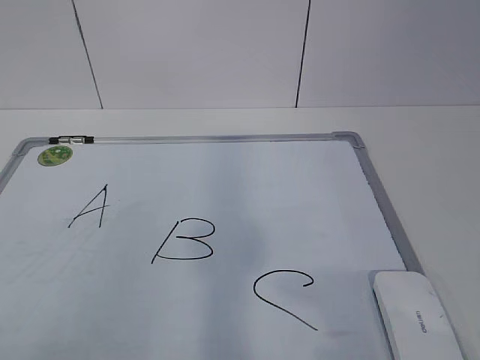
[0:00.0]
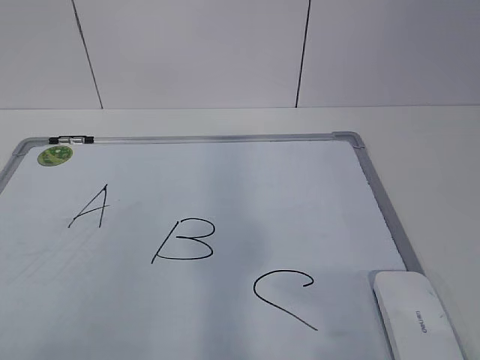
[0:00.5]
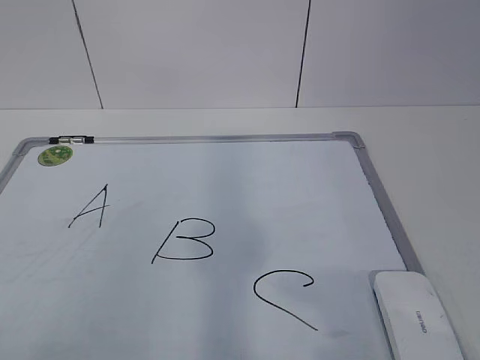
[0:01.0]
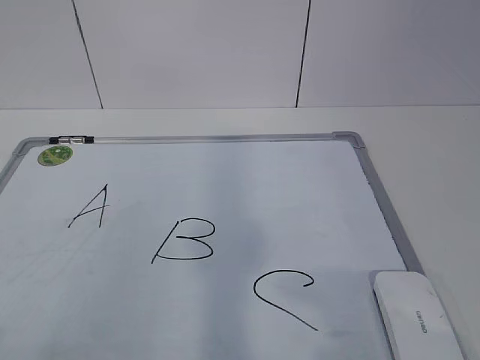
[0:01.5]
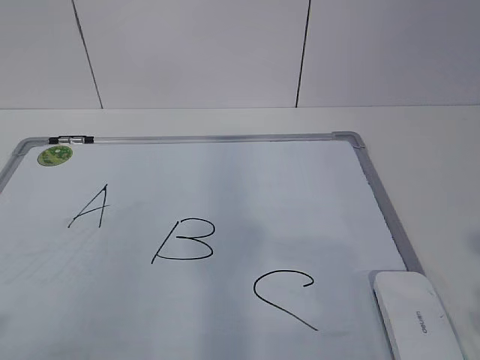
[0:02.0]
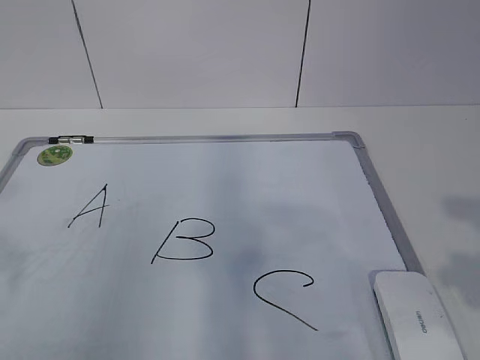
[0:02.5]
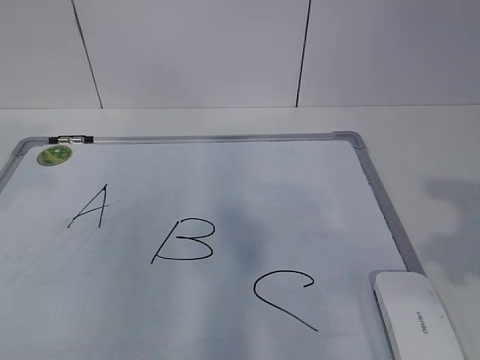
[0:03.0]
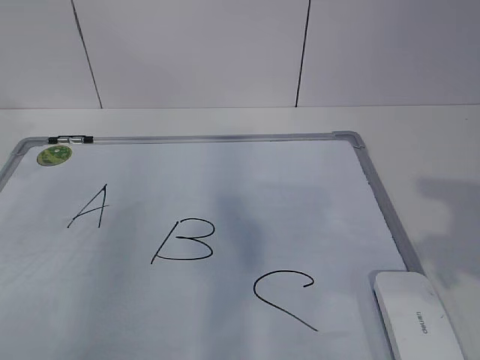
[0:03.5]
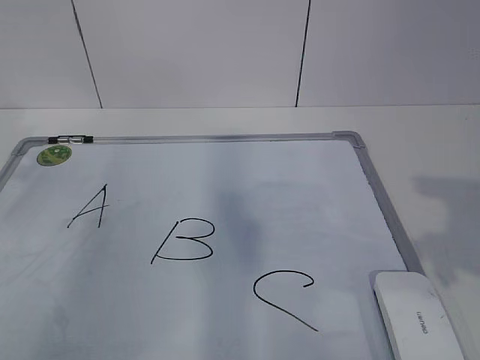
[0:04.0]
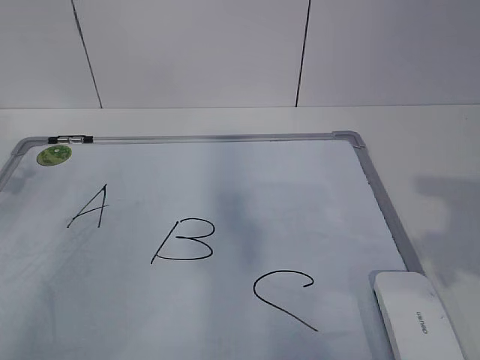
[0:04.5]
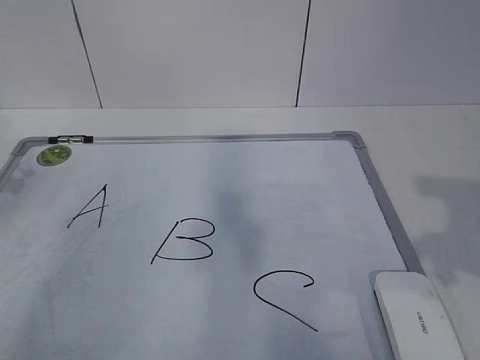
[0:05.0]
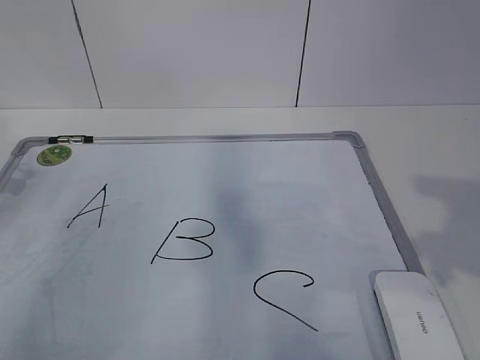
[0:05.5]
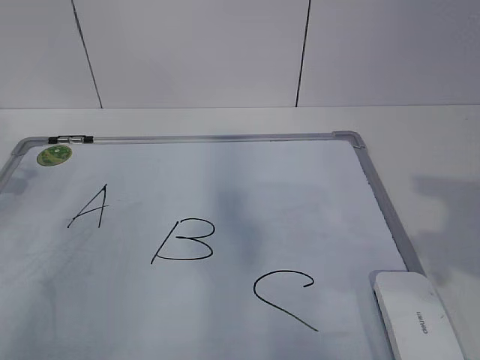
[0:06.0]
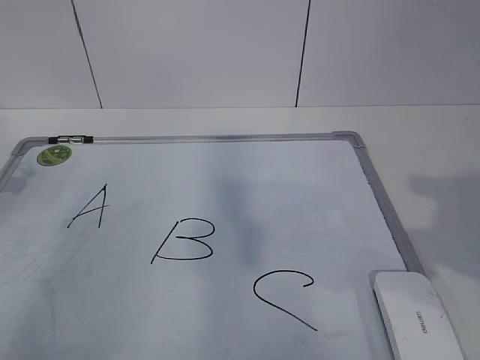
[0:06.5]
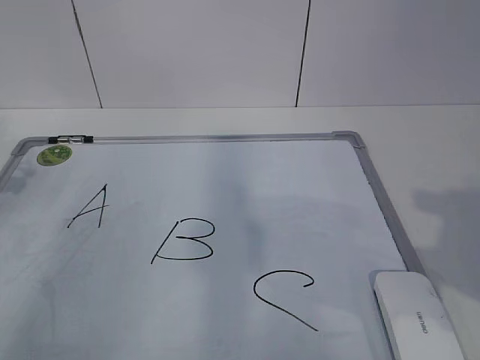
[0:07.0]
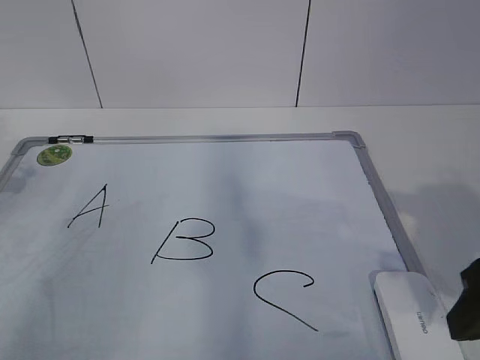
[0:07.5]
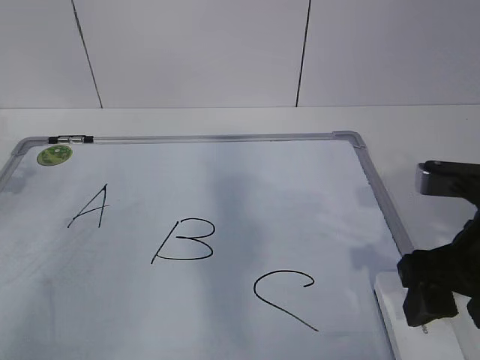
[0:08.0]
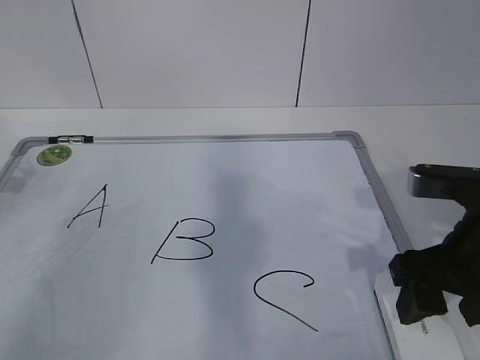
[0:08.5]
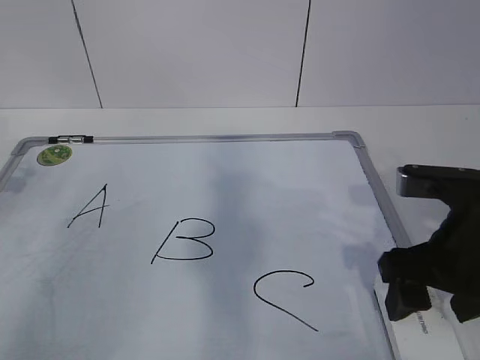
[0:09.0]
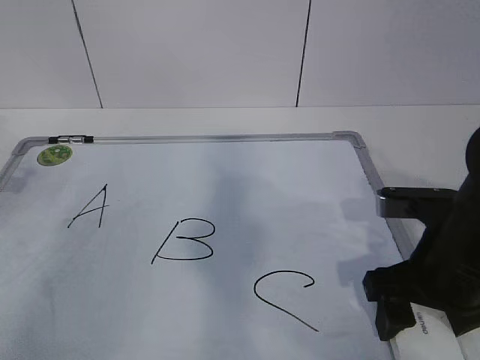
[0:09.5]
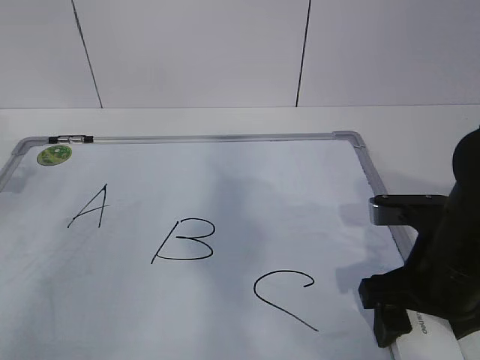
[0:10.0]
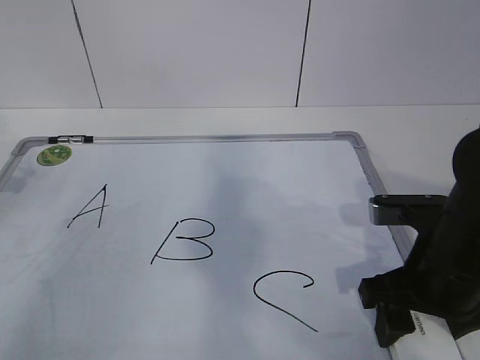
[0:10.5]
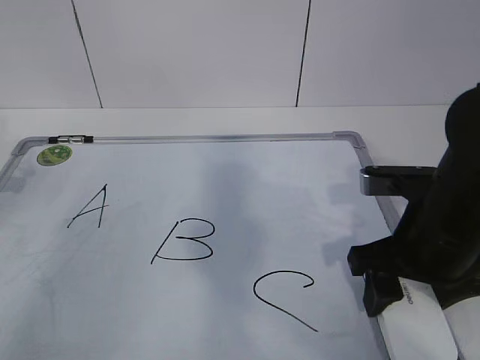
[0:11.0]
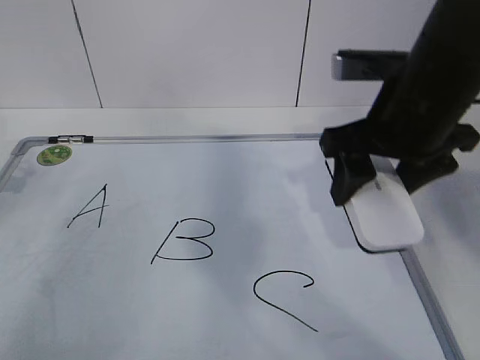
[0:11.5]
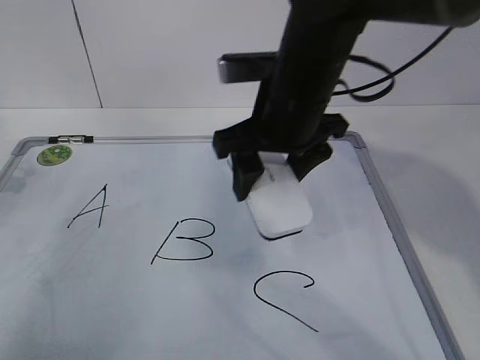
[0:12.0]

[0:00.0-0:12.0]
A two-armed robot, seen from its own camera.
Task of the whole recording: pick up the eraser on the blackboard and erase the letter "B".
Step, 0:00.0 to 0:08.0: Grab the eraser with your right hand.
0:02.0 to 0:04.0: The left gripper shifts roughly 35 cm forward; the right gripper travels forward by some 10 cm.
0:06.0 to 0:08.0: The right gripper is displaced downward, forward and to the left by about 15 cm.
0:08.0 to 0:10.0: The right gripper changes place by about 5 cm.
0:10.0 to 0:12.0: The right gripper goes approximately 20 cm forward, to the left and upward.

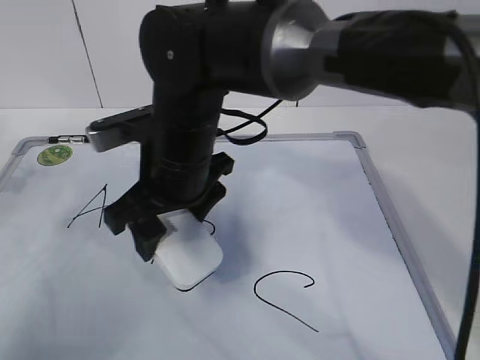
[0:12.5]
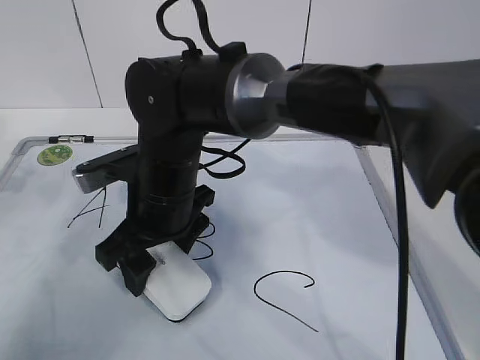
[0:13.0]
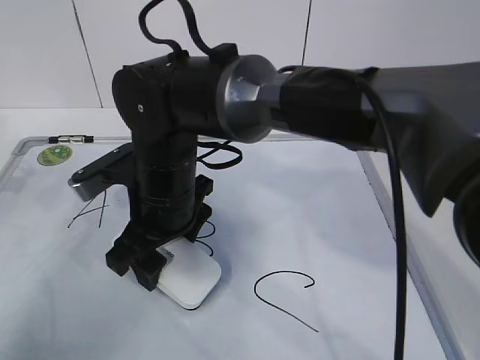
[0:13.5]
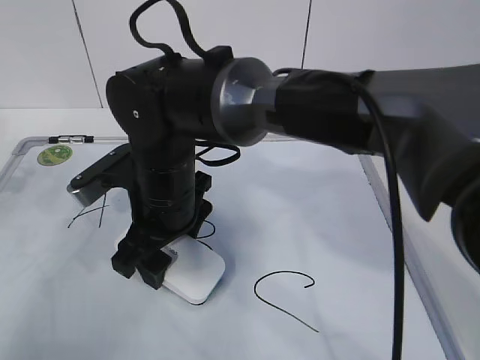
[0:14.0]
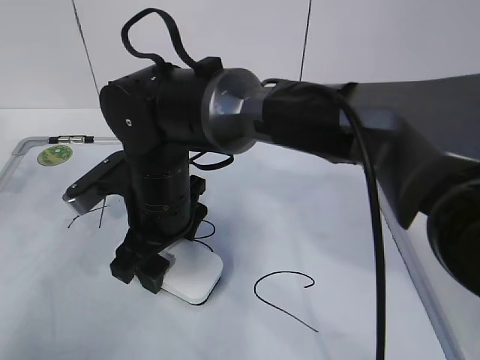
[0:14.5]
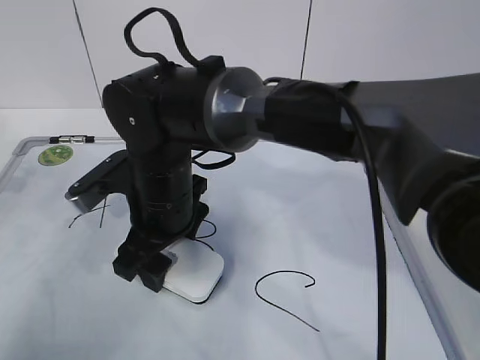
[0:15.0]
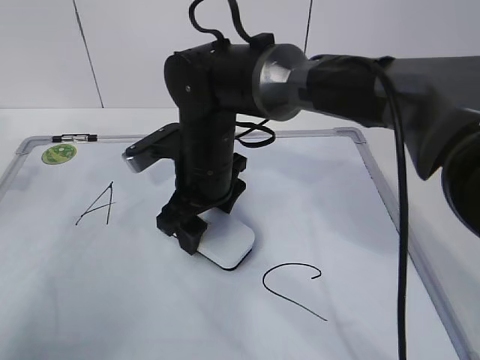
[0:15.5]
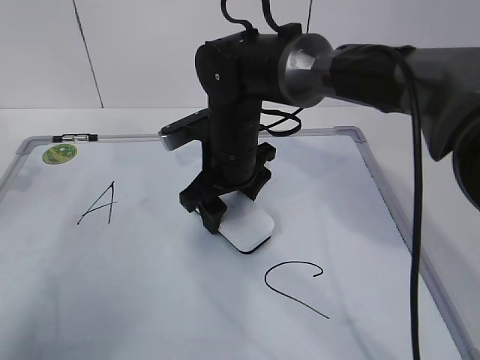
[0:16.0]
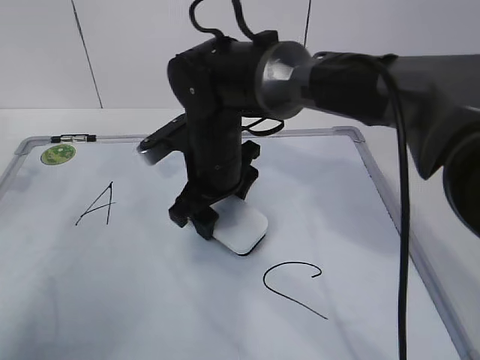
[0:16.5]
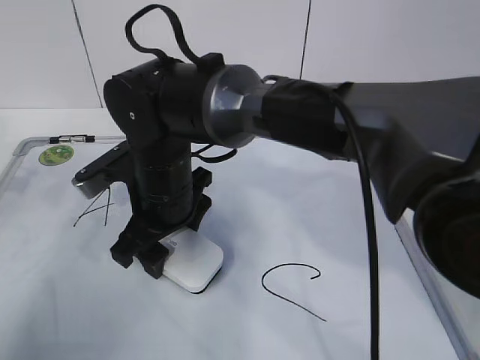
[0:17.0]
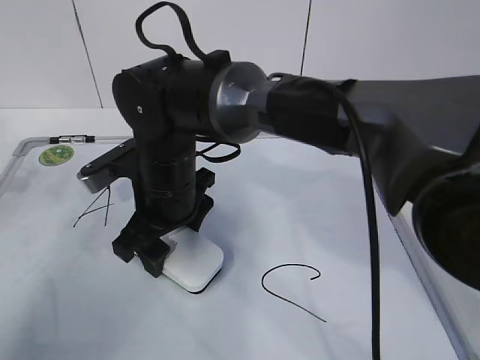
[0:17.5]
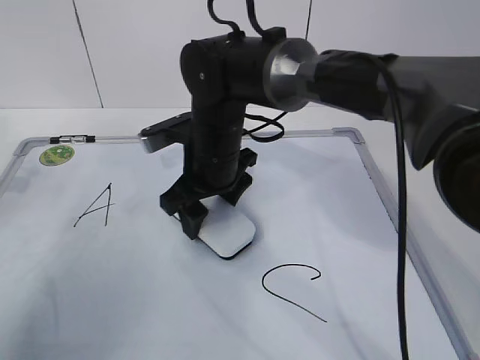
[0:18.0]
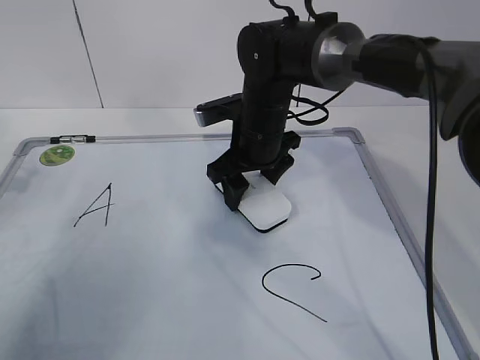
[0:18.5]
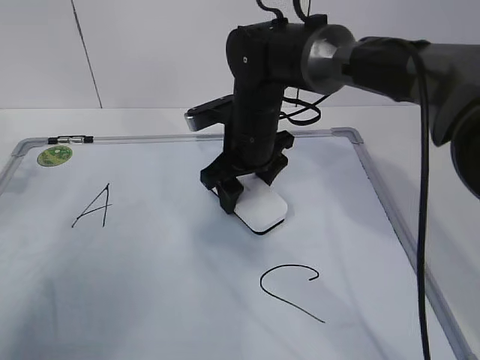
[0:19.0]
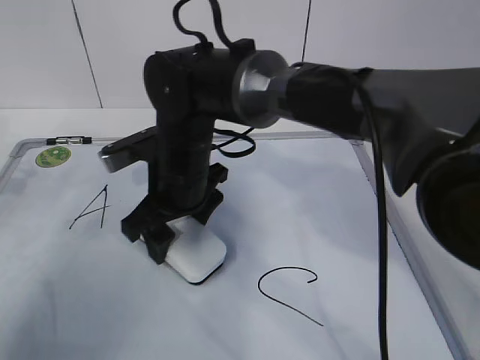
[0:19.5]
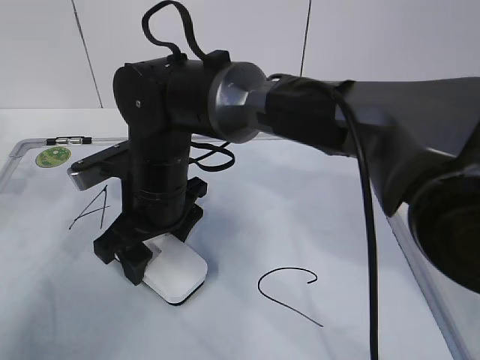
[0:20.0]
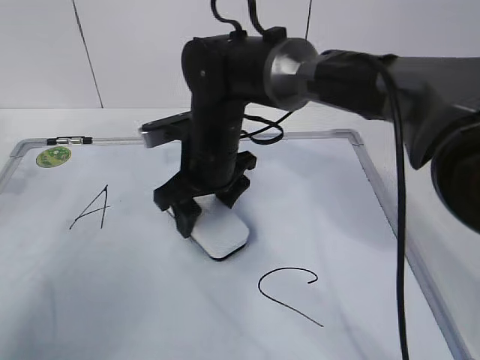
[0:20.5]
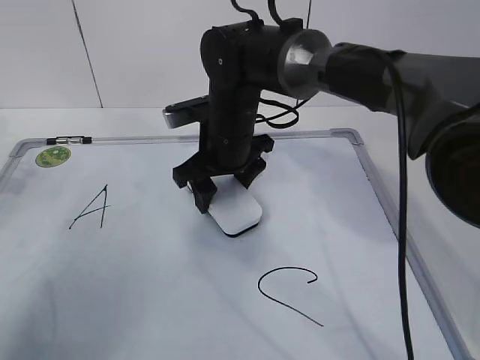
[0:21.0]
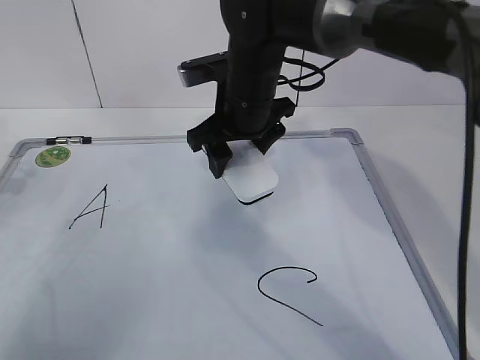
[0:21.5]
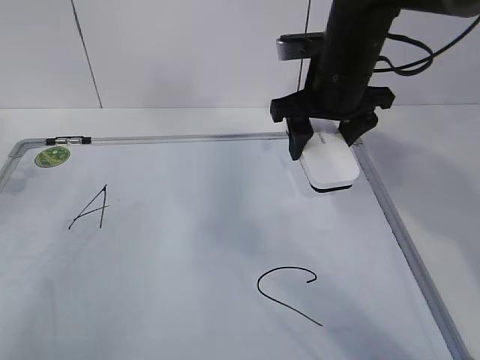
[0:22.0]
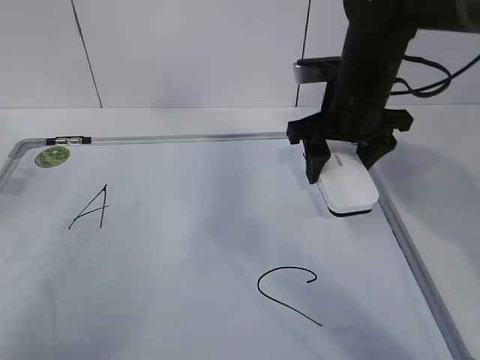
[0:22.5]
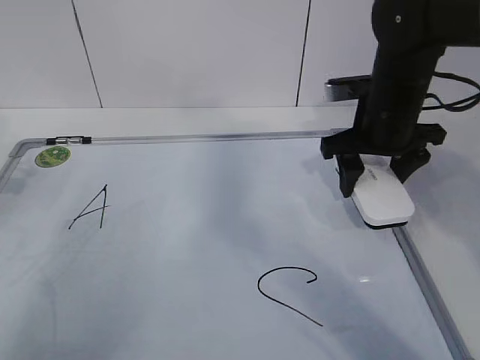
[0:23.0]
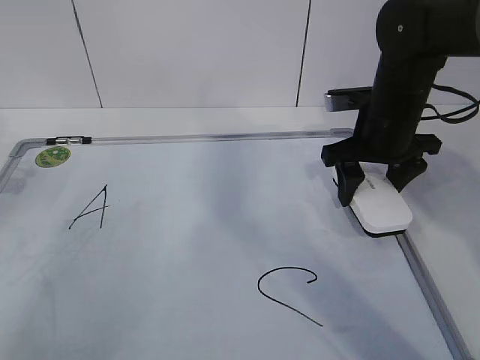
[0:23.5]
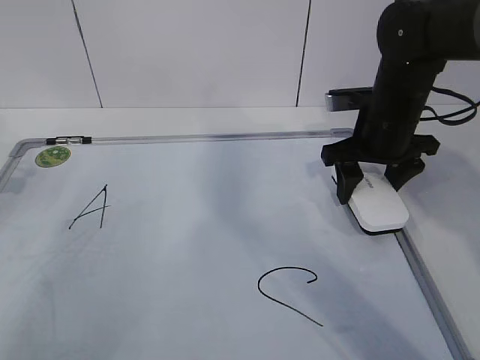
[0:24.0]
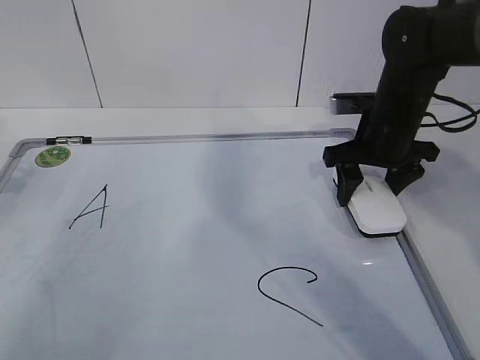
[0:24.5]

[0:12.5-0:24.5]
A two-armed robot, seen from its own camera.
Task of the whole recording: pick up the eraser on the blackboard and erase the letter "B".
Step, 0:12.5 to 0:17.5: Erase the letter B with your right hand.
Step, 0:18.0 to 0:21.5: Put down the eraser with your right hand.
0:12.5 to 0:14.5: The right gripper goes about 5 cm downward.
0:14.5 to 0:16.5: The right gripper travels forward and to the right by some 10 cm.
0:16.5 to 0:18.5: The right gripper moves to the right and forward, some 10 cm.
0:18.5 to 0:20.5: The right gripper goes approximately 5 cm to the left.
0:20.5 to 0:22.5: The right gripper is displaced to the right and upward by some 20 cm.
0:22.5 to 0:24.5: The right gripper moves to the right, roughly 5 cm.

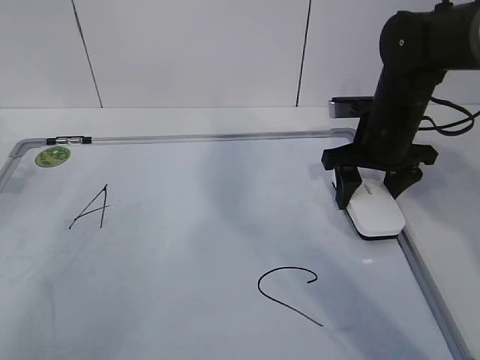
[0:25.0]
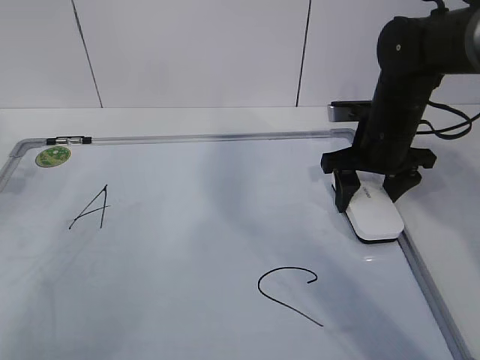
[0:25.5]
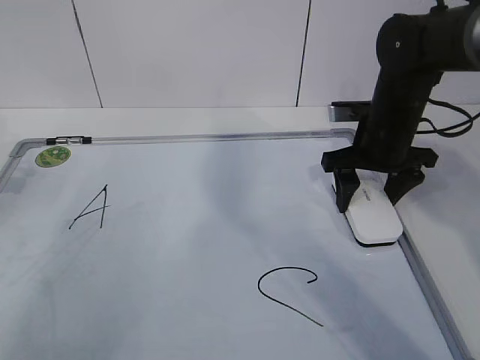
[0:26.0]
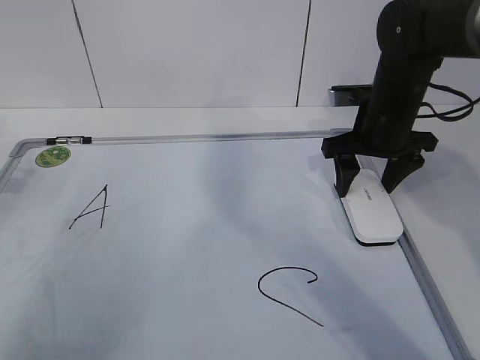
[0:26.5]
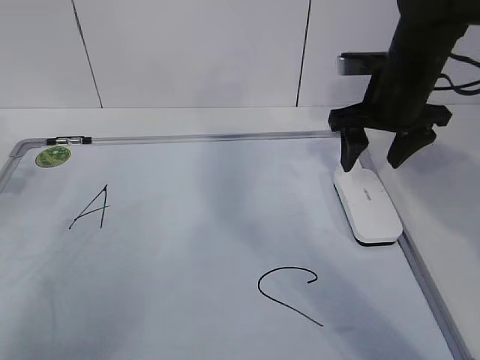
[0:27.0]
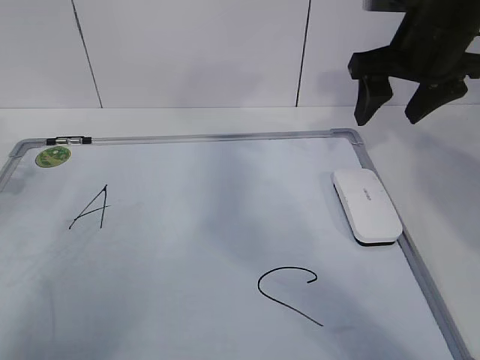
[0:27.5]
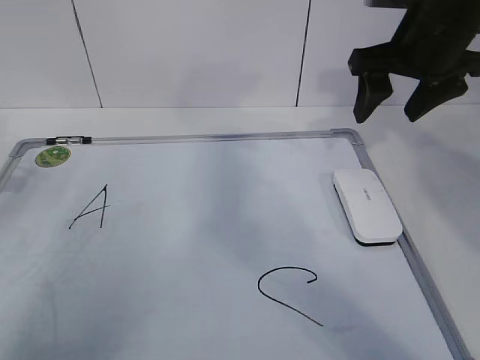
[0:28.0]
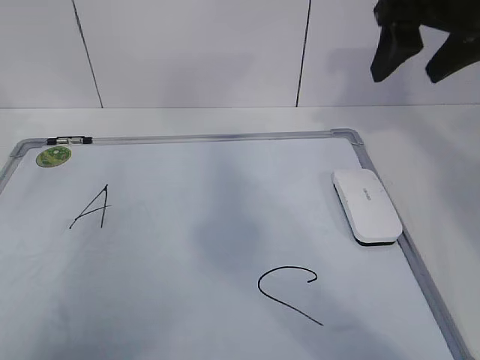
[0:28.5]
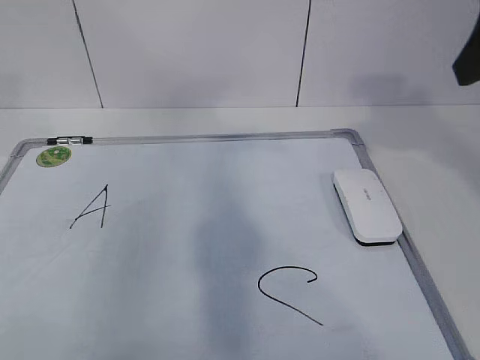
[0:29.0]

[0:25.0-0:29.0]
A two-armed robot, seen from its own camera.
Task of the whole recording: pick up the eraser on the blackboard and erase the letter "B".
0:25.0 to 0:27.0: The right gripper moves upward, roughly 5 cm.
0:27.0 to 0:29.0: The left gripper travels upward by about 20 cm, and opens its fingers. Meanwhile the right gripper moves upward and backward, some 25 cm.
